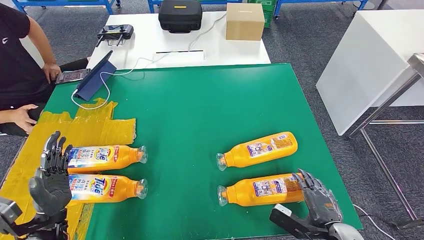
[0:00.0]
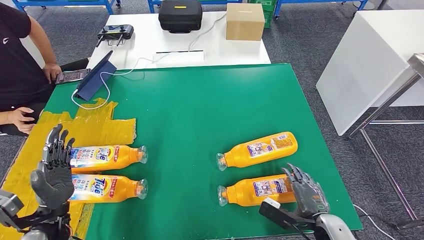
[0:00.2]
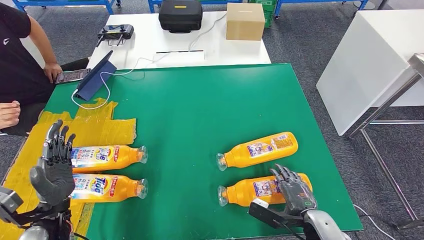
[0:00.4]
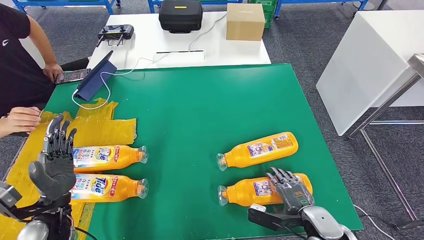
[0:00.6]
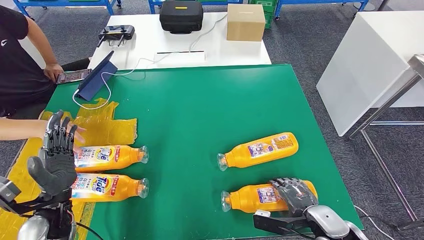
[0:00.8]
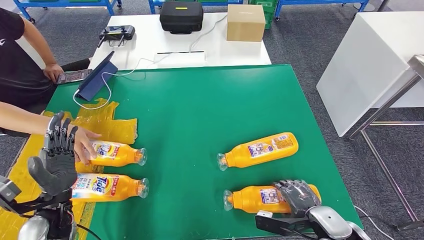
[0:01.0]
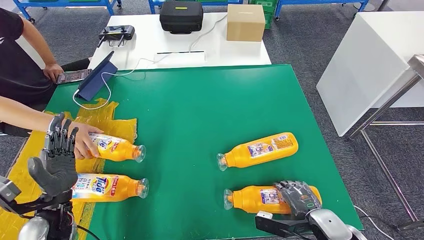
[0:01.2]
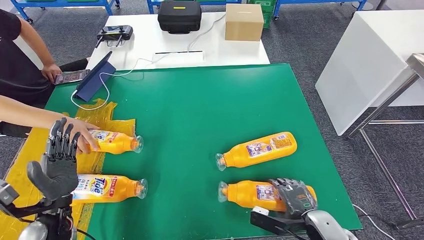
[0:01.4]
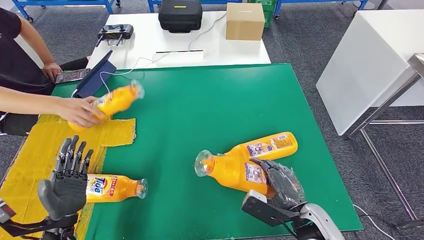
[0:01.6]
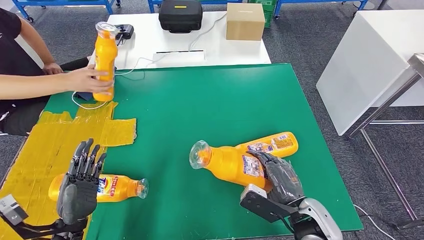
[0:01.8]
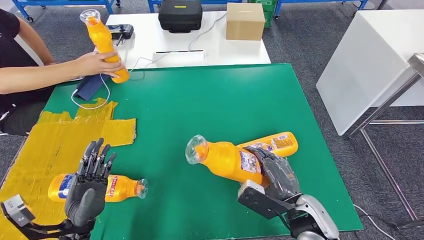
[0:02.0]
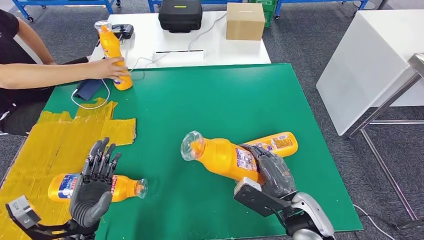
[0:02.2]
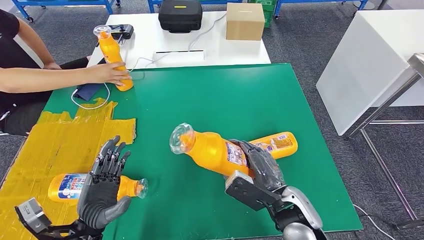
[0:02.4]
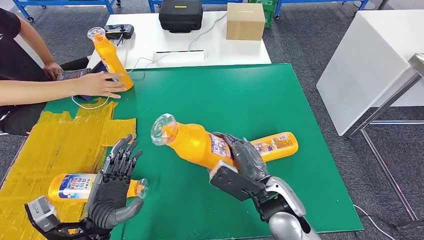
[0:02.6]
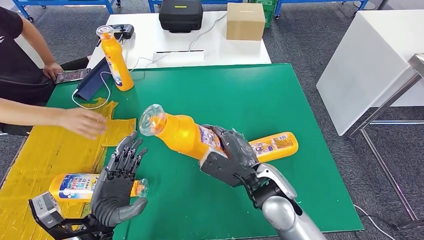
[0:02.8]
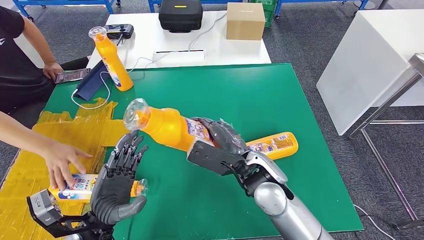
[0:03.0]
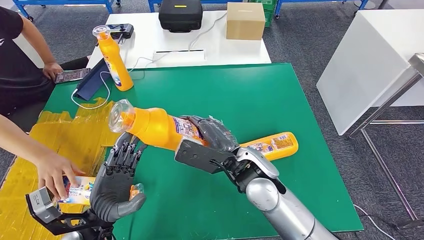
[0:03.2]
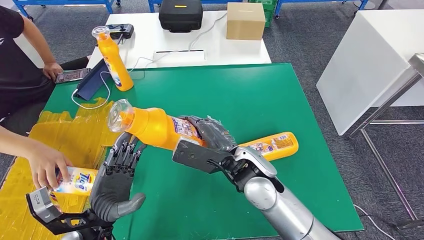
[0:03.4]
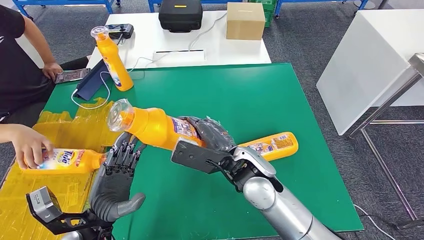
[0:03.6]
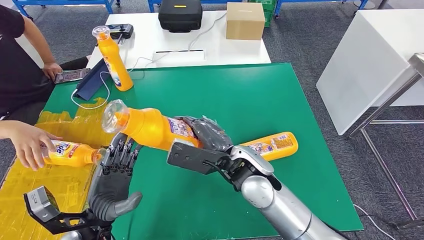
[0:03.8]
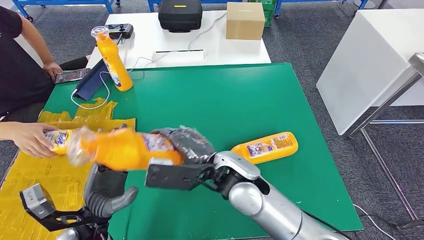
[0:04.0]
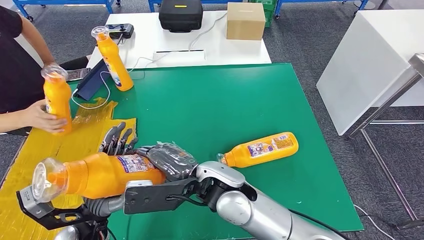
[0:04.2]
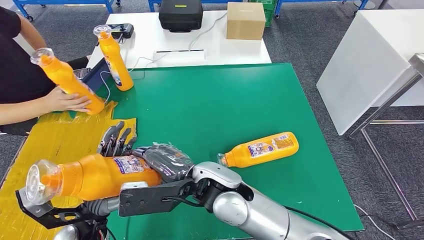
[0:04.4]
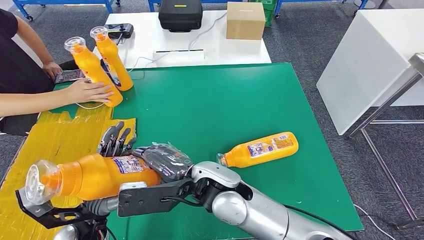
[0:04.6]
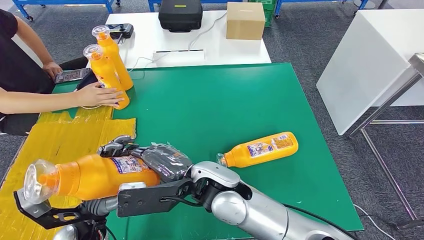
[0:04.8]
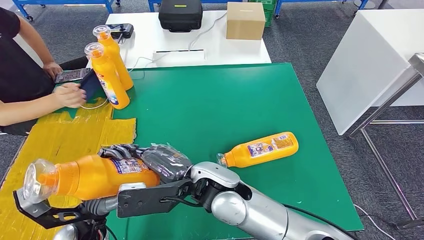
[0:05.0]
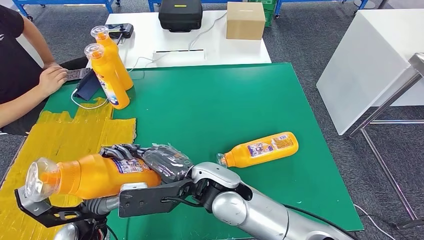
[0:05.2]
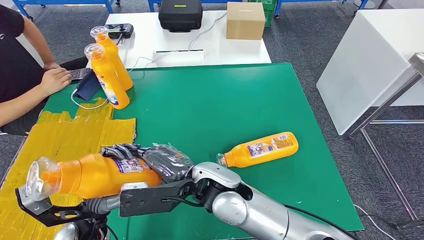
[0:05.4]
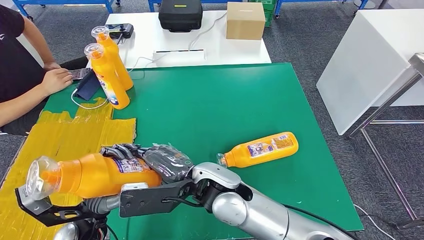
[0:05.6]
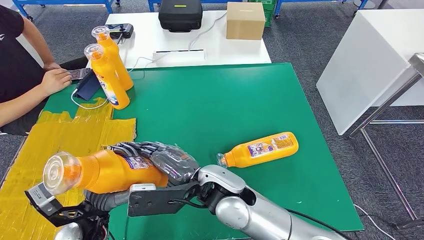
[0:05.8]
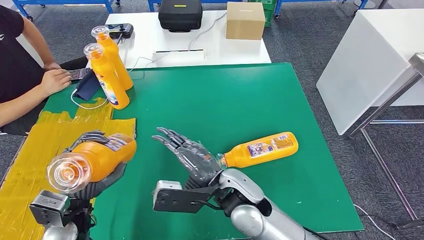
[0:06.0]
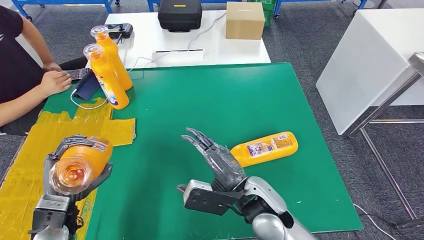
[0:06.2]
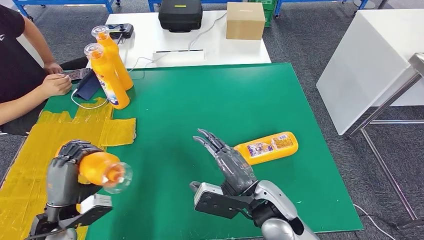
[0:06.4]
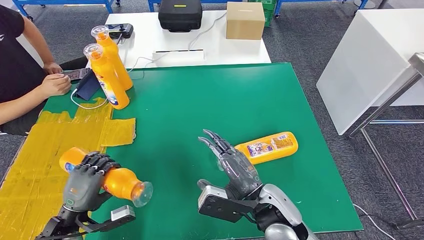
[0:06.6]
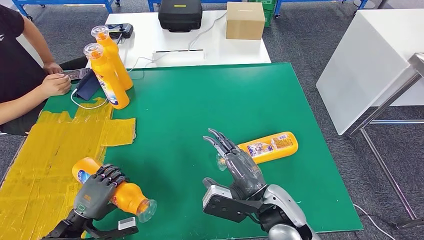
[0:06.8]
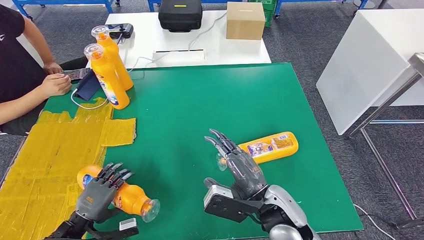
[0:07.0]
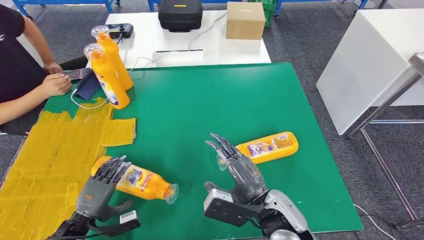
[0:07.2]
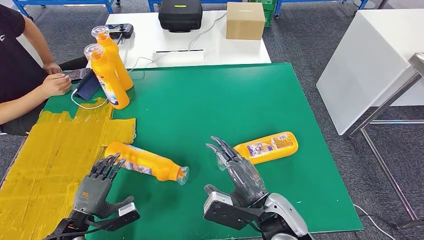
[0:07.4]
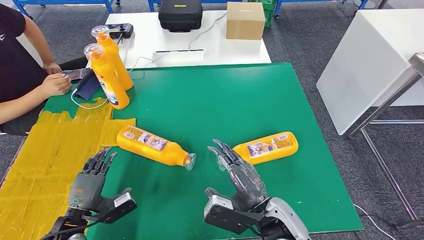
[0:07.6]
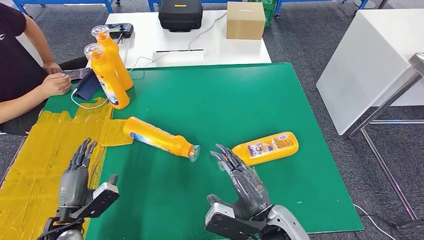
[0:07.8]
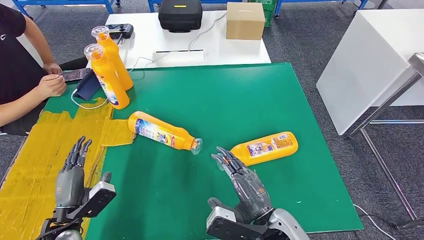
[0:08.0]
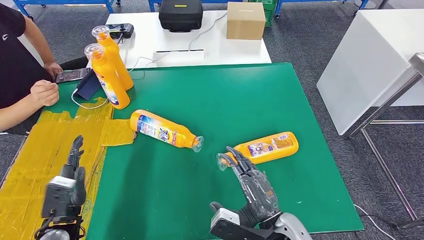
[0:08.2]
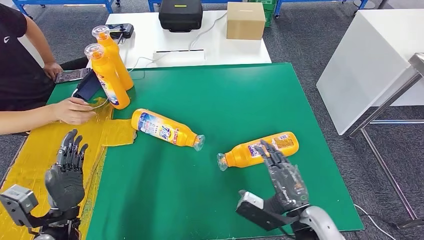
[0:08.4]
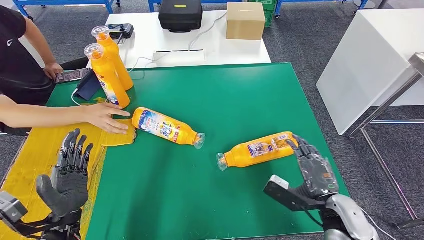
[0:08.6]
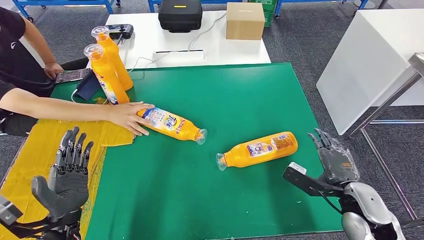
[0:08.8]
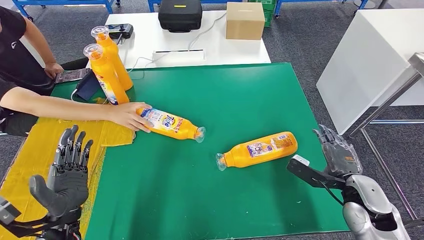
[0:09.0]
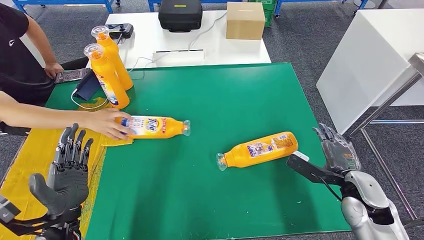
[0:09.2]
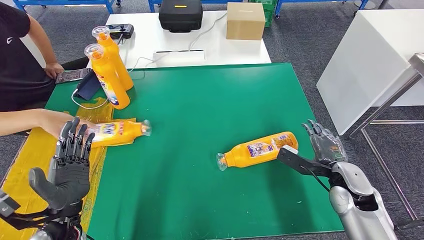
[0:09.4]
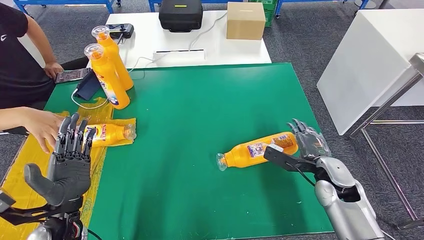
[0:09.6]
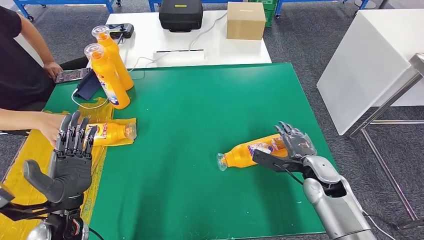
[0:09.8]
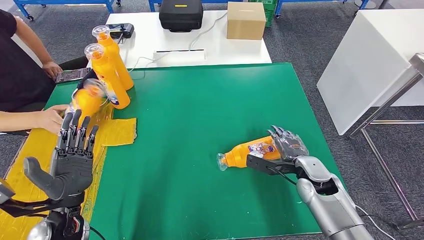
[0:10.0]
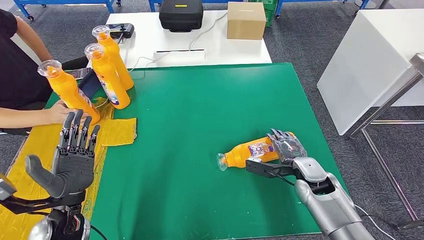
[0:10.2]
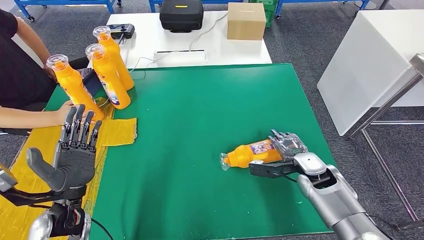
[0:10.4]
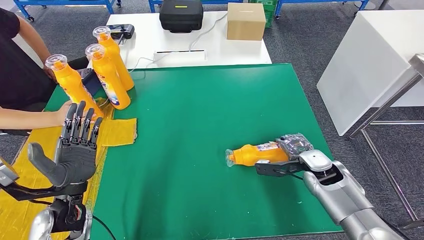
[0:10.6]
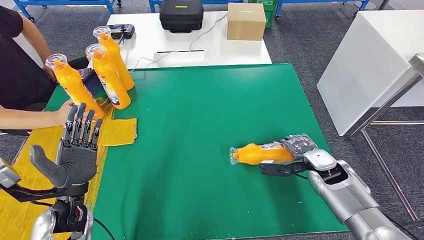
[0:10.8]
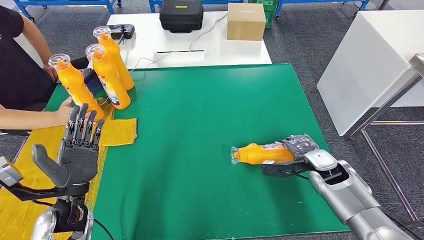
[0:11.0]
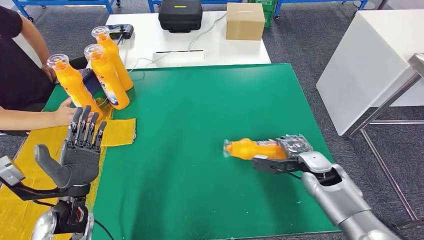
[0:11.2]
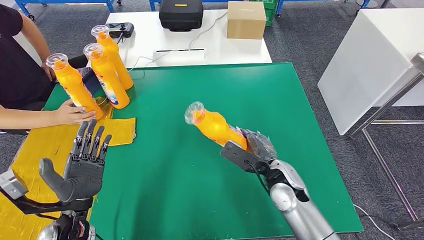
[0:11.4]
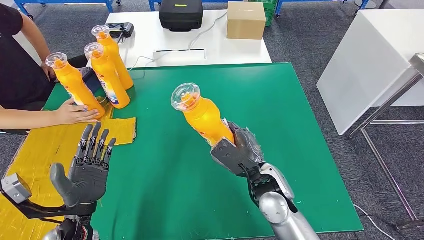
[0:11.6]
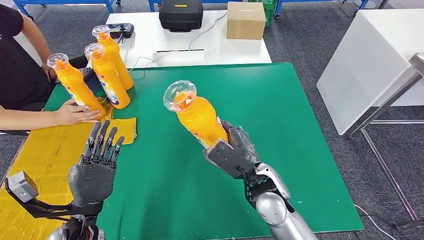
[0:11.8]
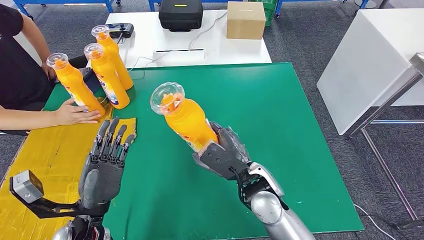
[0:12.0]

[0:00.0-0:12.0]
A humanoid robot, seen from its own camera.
Step, 0:00.0 to 0:02.8: Pick up the bottle from the table.
Step, 0:03.0 to 0:07.6: Flip the bottle to face forward.
0:00.0 to 0:01.6: The right hand travels to the left by about 5 cm.
0:06.0 to 0:07.6: The left hand moves downward and to the left, roughly 10 cm; the right hand travels to the right and backward by about 10 cm.

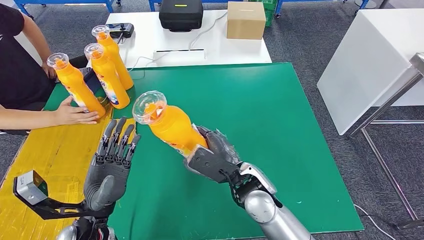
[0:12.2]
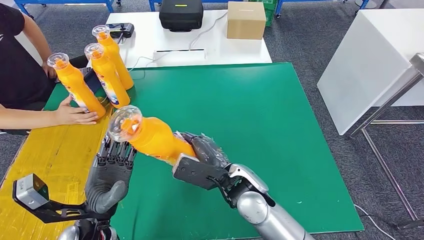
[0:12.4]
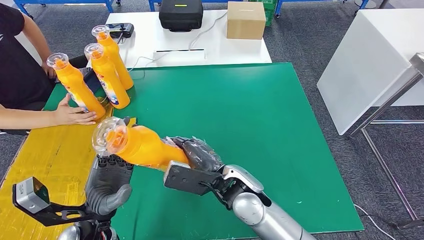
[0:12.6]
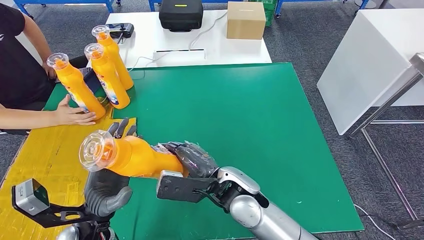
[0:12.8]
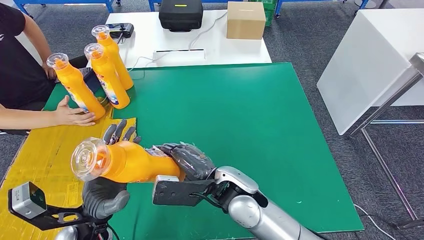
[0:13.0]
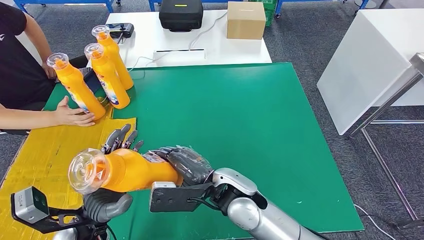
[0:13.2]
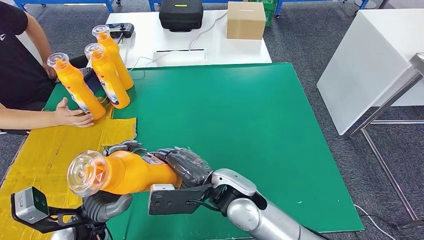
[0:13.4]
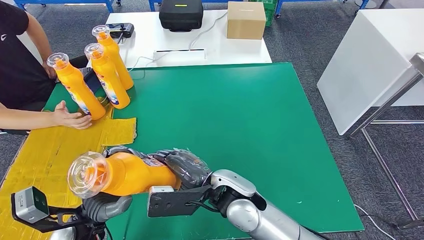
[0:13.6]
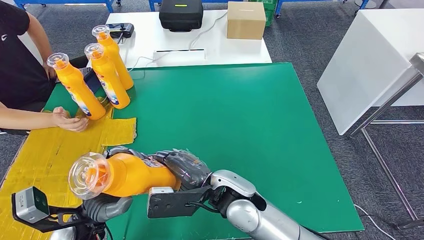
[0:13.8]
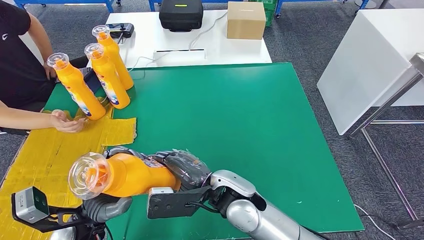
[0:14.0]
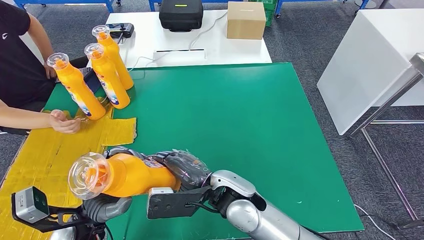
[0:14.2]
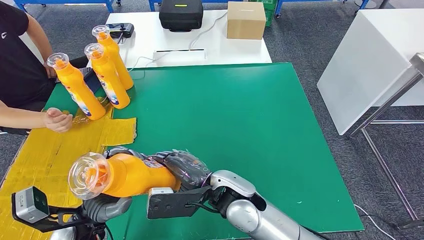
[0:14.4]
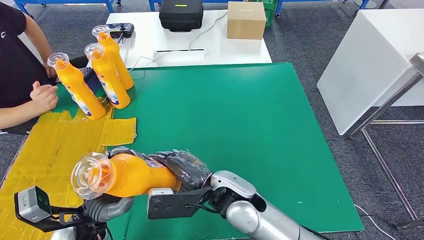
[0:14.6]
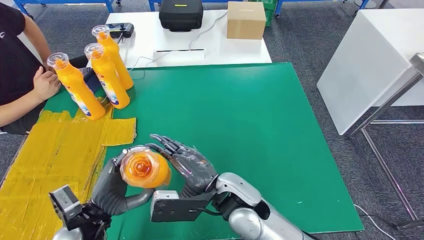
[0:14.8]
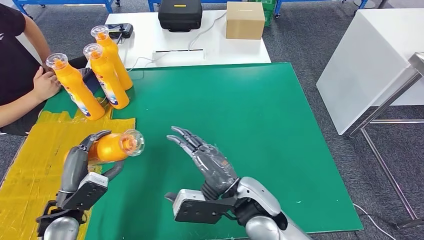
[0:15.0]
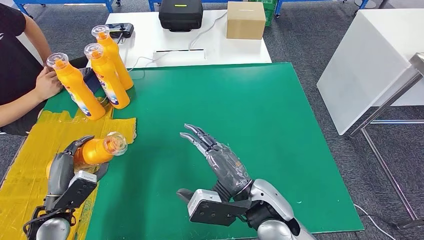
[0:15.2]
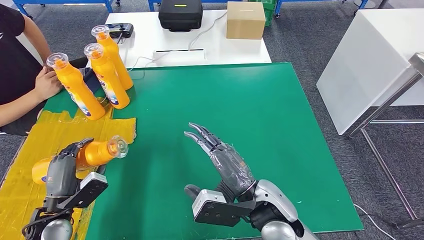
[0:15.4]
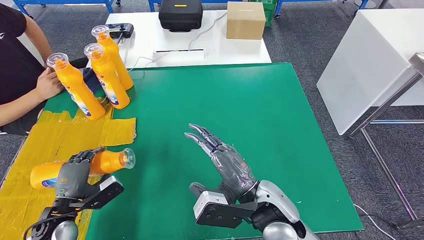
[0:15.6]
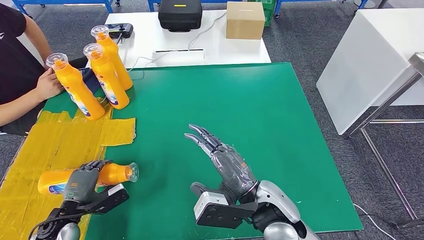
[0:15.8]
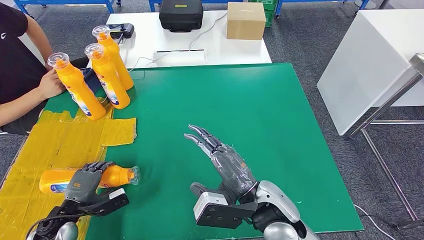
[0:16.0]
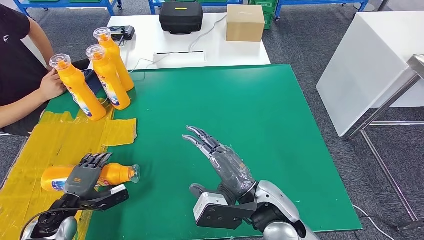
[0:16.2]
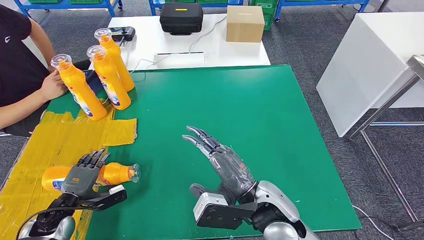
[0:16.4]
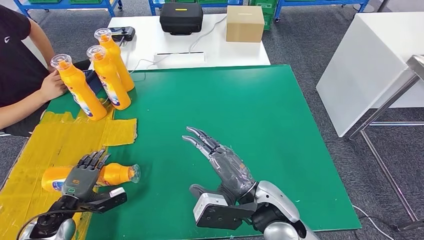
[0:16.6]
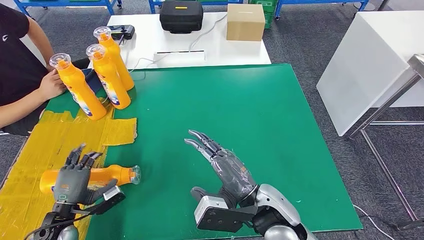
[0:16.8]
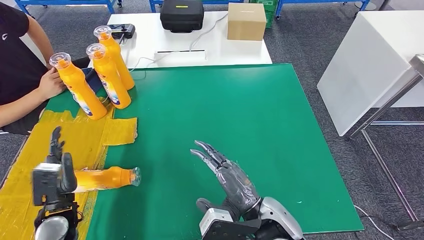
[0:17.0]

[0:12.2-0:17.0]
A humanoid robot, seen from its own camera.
Step, 0:12.6 to 0:17.0: Flip the bottle to face forward.
0:12.2 to 0:13.8: The right hand ends up roughly 5 cm from where it was.
